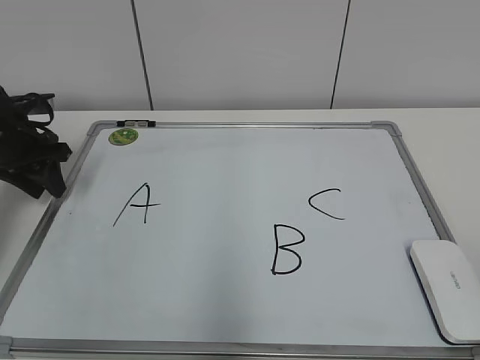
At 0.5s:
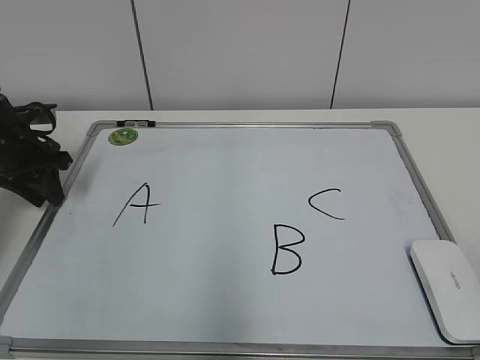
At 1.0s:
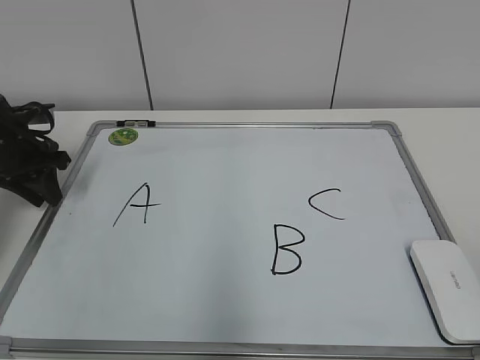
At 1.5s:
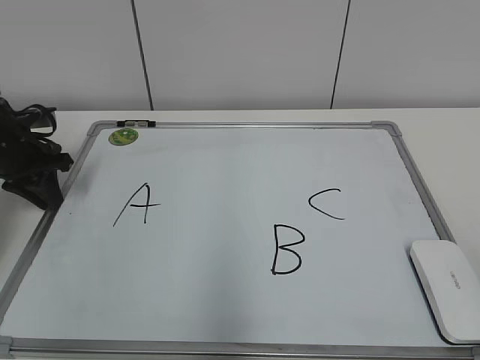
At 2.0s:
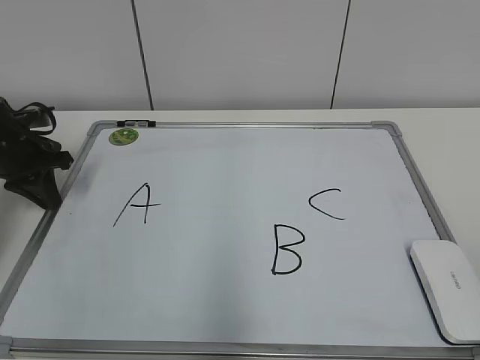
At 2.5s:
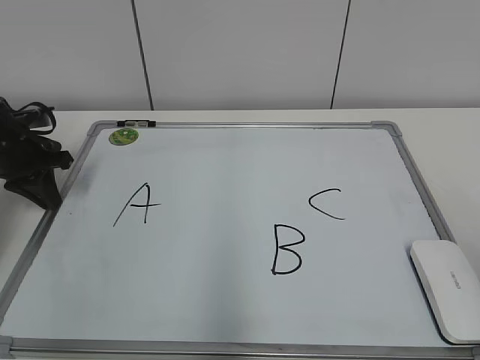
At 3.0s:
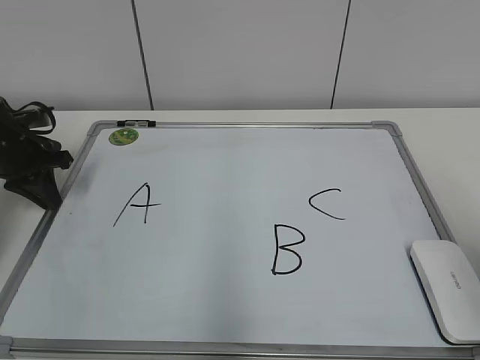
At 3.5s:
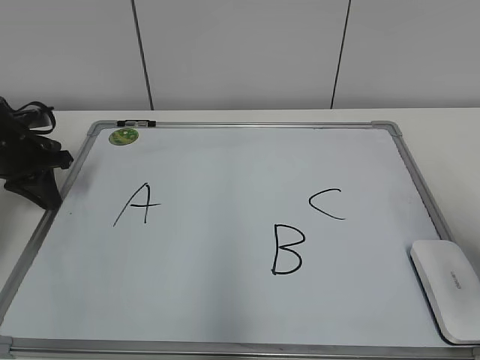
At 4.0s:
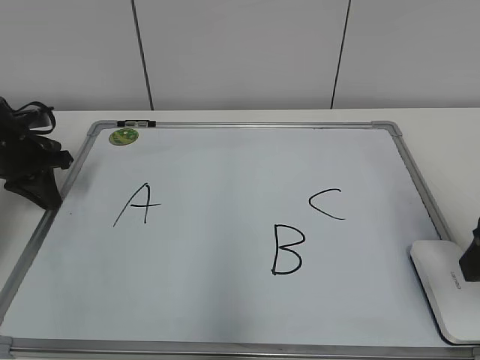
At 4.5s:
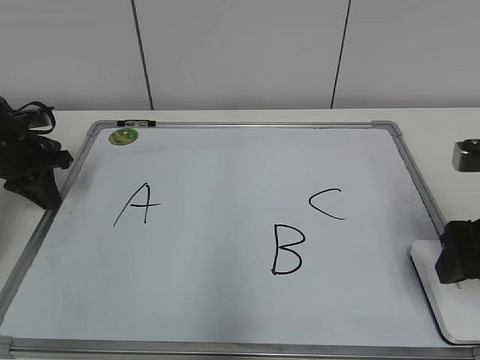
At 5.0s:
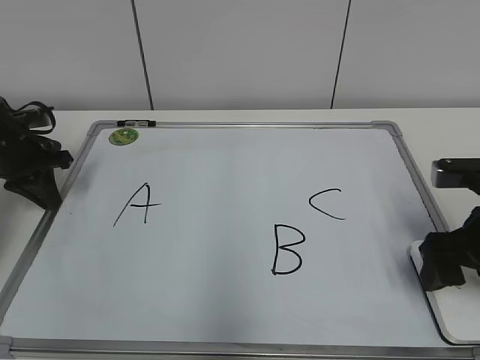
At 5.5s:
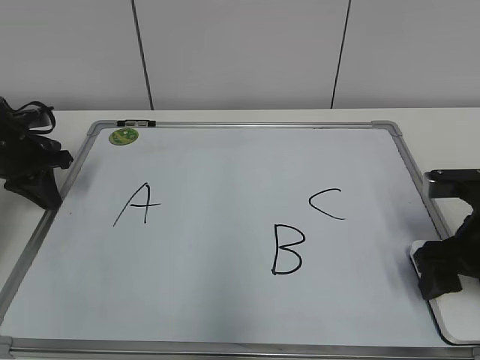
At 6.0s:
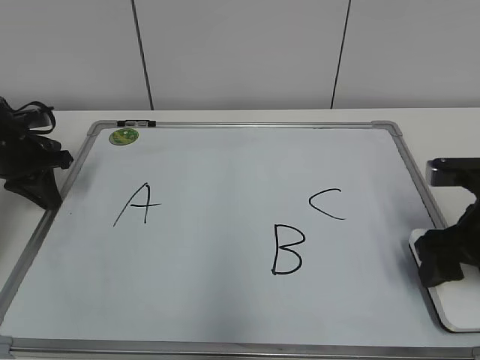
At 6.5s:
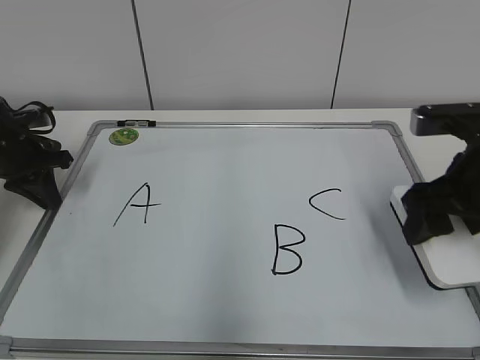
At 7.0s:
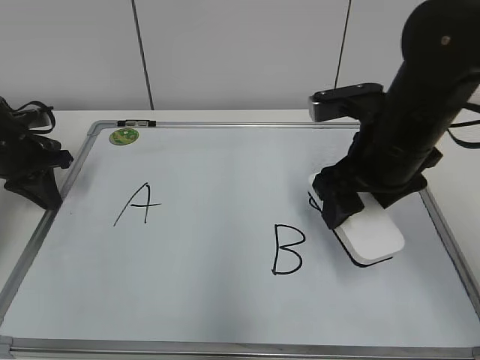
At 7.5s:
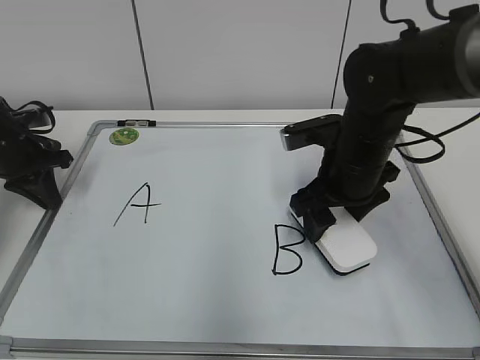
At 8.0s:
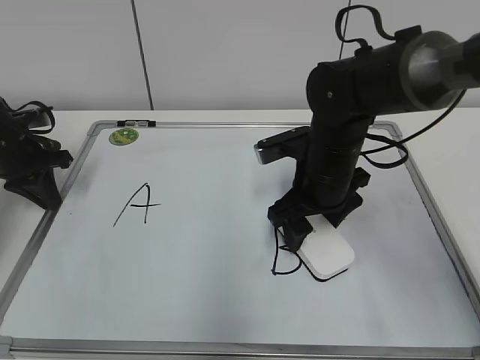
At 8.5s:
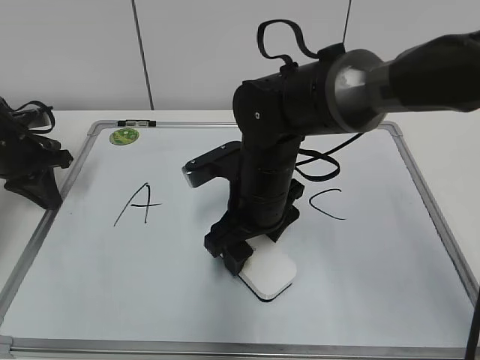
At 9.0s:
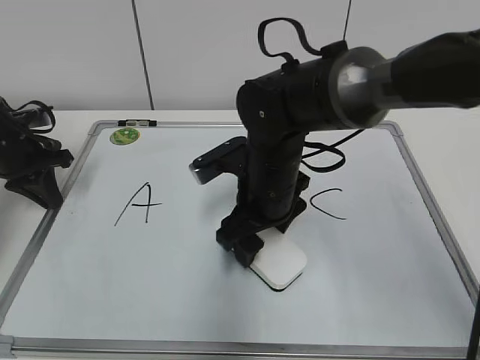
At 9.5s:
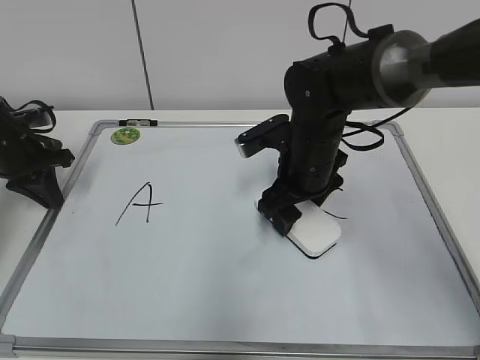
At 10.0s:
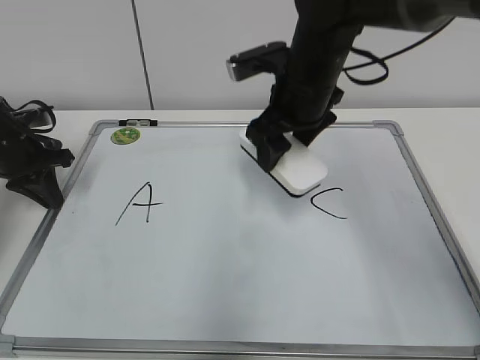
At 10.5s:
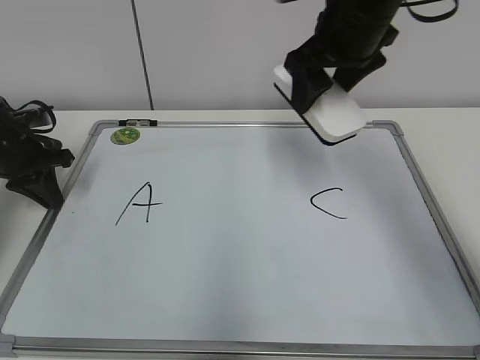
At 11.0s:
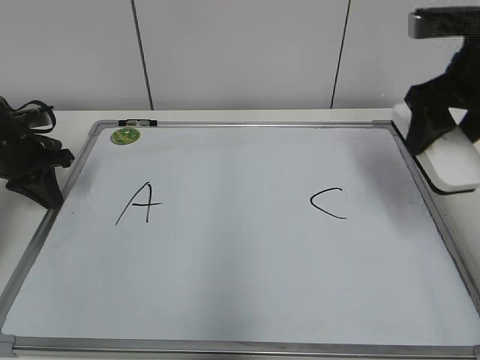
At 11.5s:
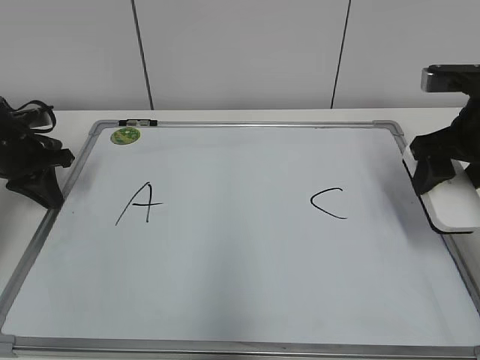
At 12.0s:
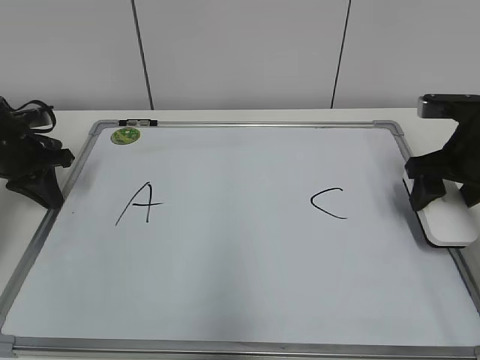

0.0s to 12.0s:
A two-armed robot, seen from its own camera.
Task of the whole recording: pick up the eraser on the blackboard and erase the letter "B".
Step, 0.0s to 2.0s: Hold the drawing board steady with your left hand.
Step, 2.5s to 5.5s: Grab the eraser with your right hand.
Step, 6.0s to 9.0s: Erase the letter B with your right hand.
0.0s to 2.0s: The left gripper closes its fingers.
2.0s to 4.0s: The right gripper travels forward by some 20 cm.
4.0s to 6.0s: The right gripper moves downward and forward, about 10 cm, and closes up.
6.0s to 8.0s: The right gripper heads to the left and forward, covering about 20 cm.
8.0s to 10.0s: The right gripper moves upward, approximately 10 cm.
10.0s to 12.0s: The right gripper heads to the right, covering approximately 20 cm.

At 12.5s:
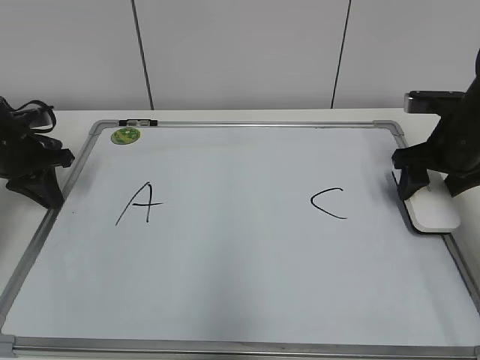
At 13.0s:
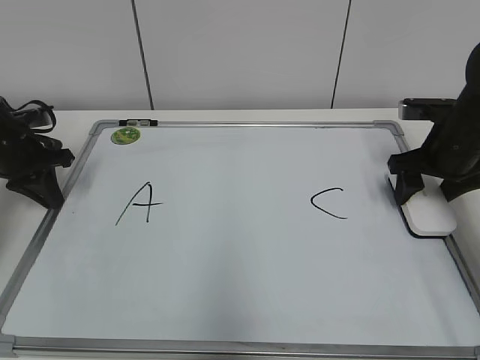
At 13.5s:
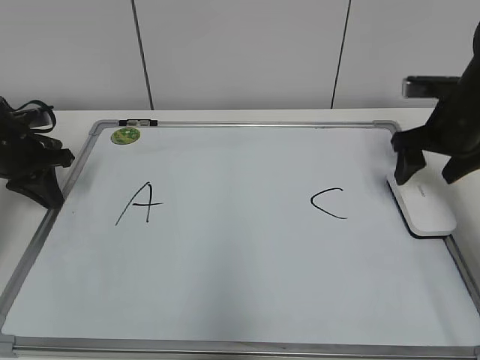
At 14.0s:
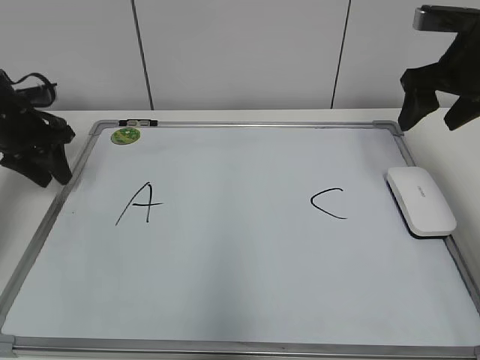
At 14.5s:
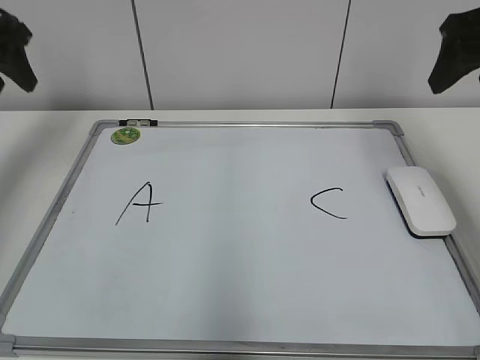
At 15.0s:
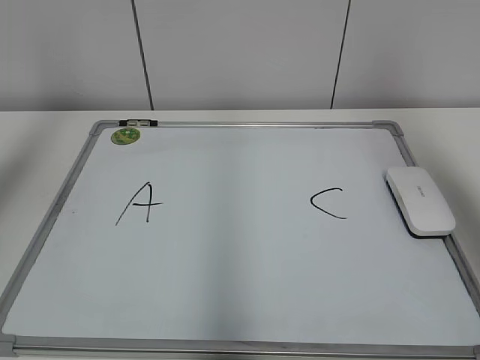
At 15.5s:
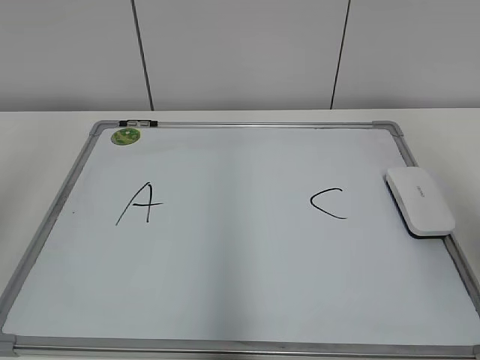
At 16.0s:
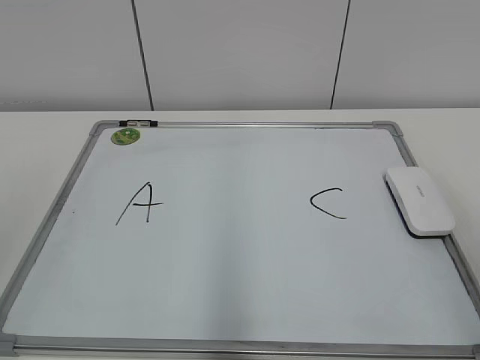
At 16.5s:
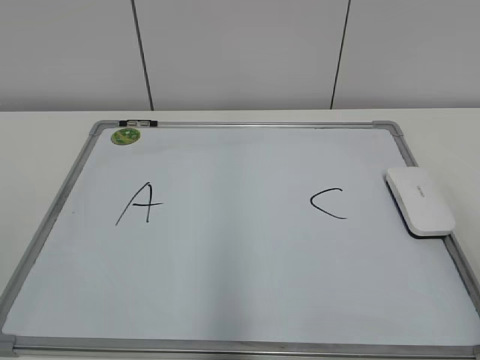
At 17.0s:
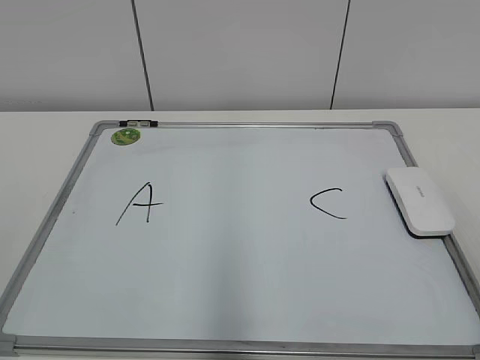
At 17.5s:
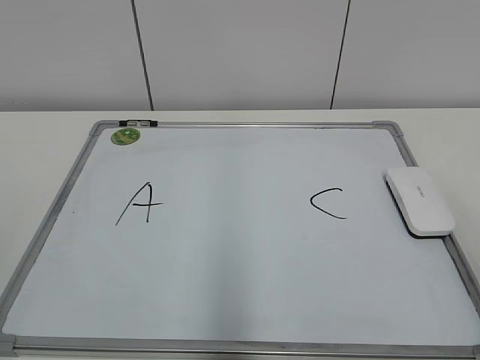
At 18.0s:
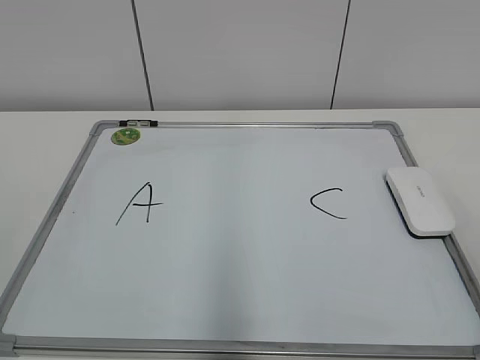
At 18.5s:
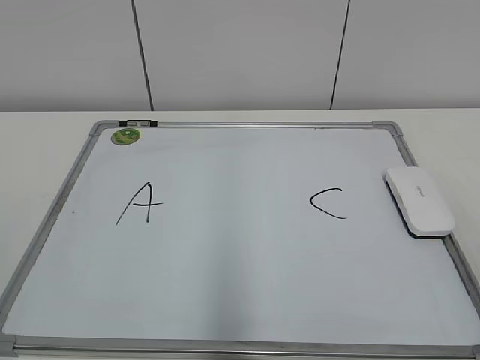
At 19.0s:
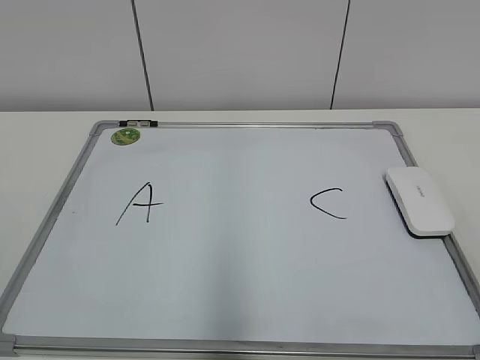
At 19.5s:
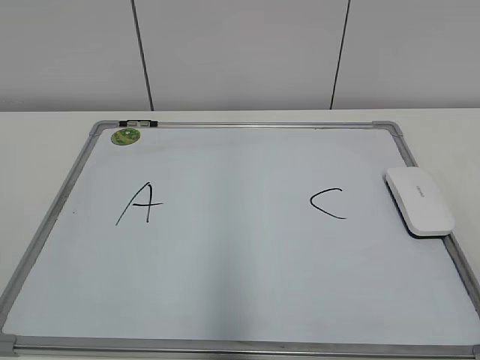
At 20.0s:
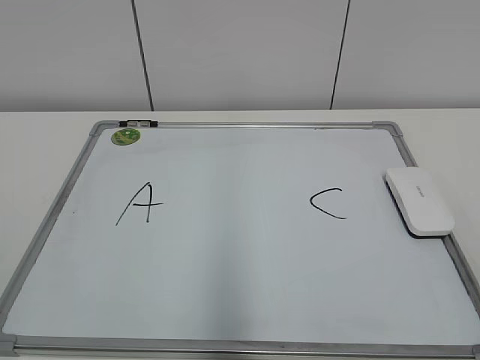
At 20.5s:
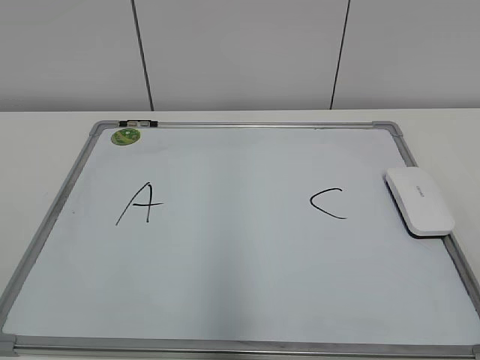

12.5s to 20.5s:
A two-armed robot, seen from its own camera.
Task of the whole recording: pick up the eraser on the blackboard and erase the letter "B".
12.5s to 14.5s: Both grippers move upward, some 15 cm. The right gripper opens its fingers; the left gripper opens.
14.5s to 16.5s: The grippers both shift backward by approximately 35 cm.

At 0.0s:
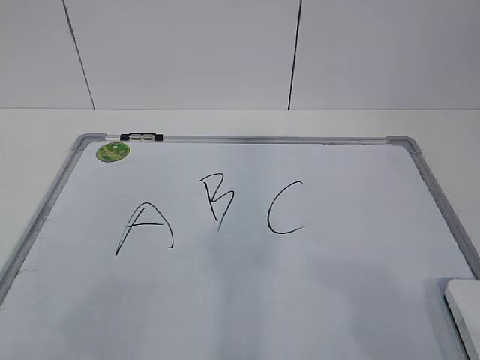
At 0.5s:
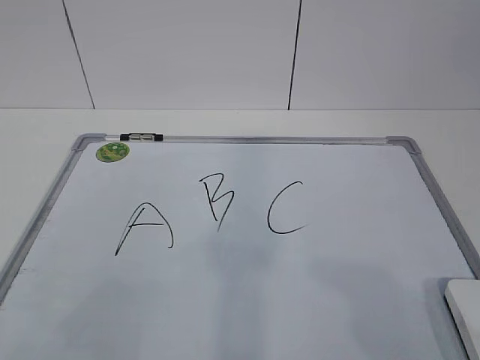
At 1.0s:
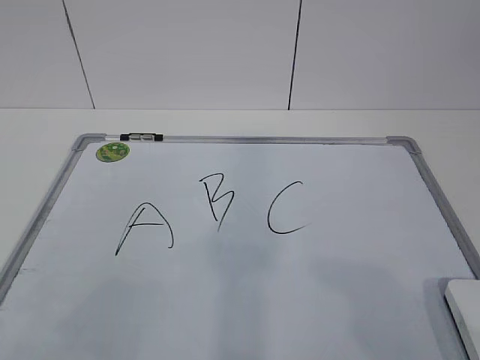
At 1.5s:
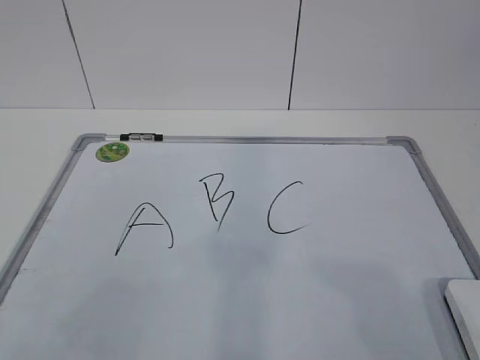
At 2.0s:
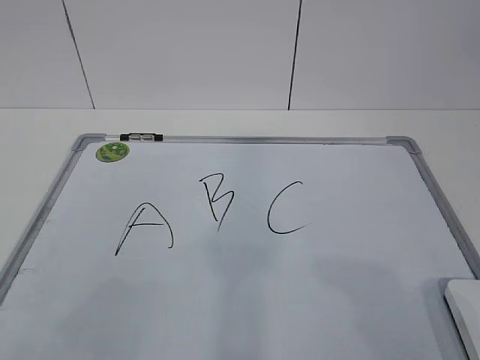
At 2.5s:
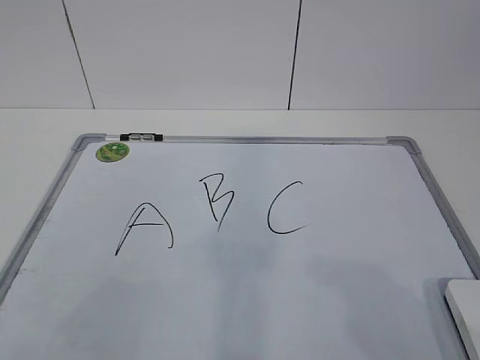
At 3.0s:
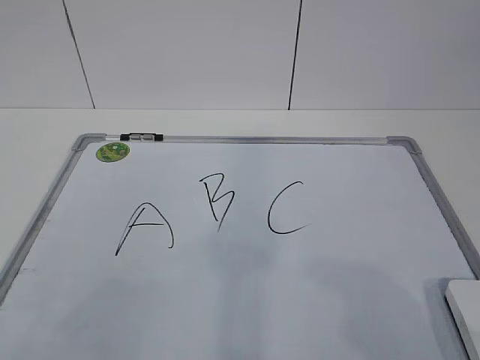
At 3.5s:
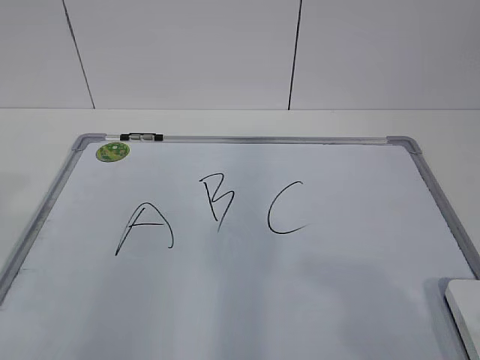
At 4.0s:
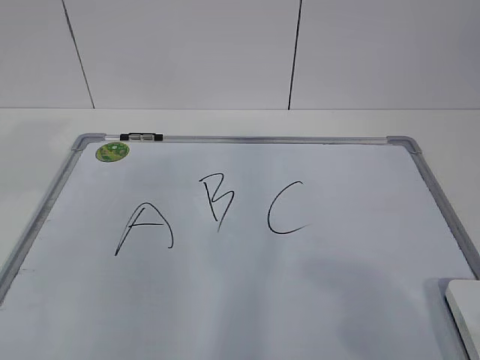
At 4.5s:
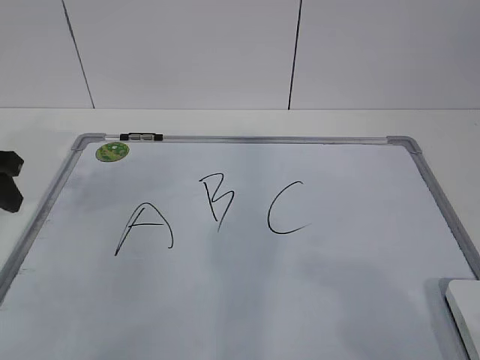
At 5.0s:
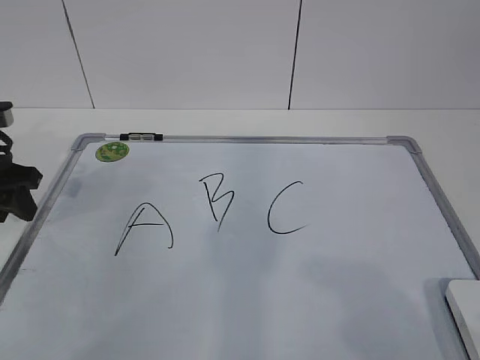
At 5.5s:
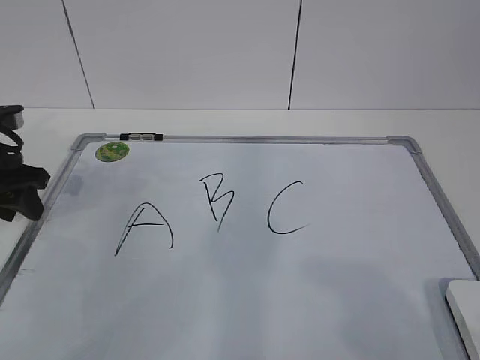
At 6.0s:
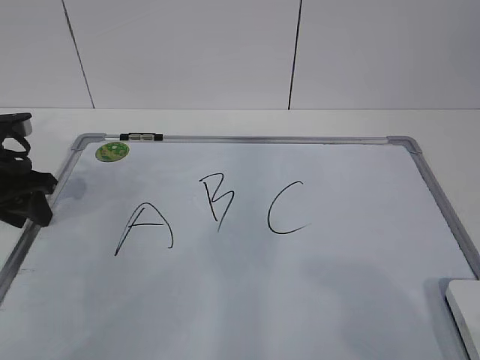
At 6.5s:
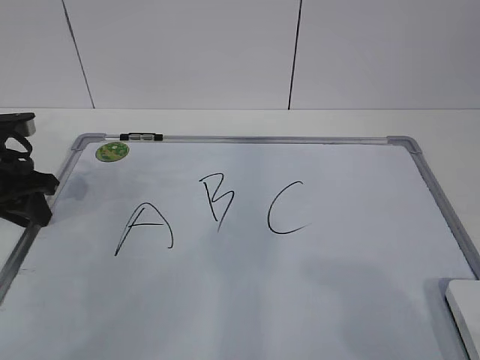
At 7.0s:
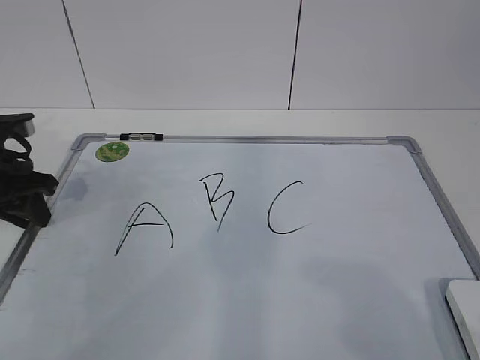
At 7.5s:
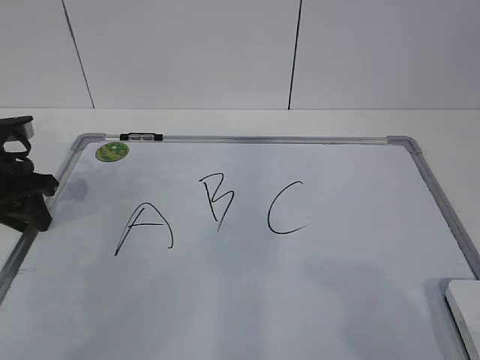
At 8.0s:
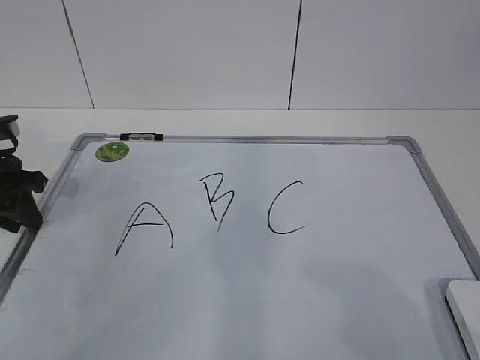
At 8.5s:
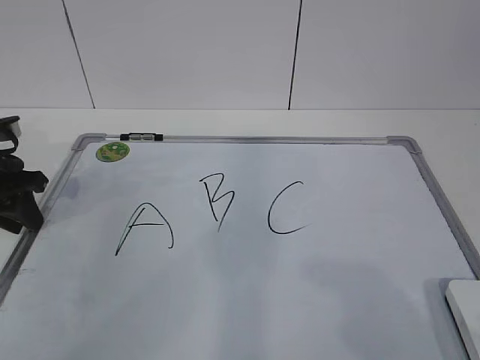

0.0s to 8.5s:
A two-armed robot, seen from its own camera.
Task of the whole recording: pick up the eraser on the blackboard and erase the letter "B".
Step, 0.0s to 7.5s: Hold the drawing board steady with your left hand.
4.0s to 6.5s: The left gripper goes some 20 cm downward and forward.
6.5s to 8.5s: The grippers move only a little.
